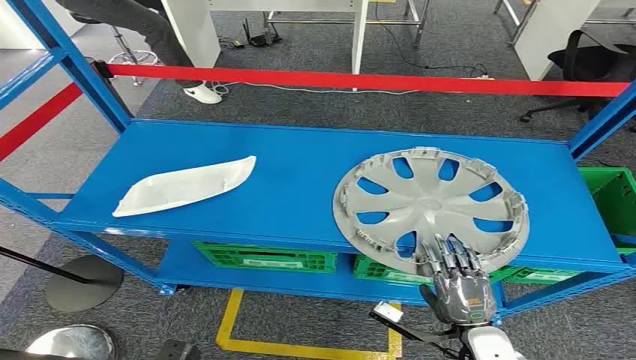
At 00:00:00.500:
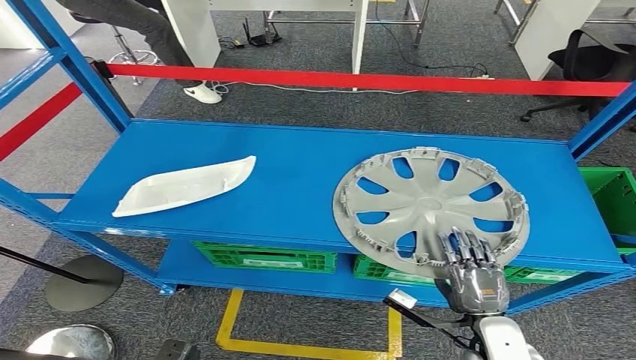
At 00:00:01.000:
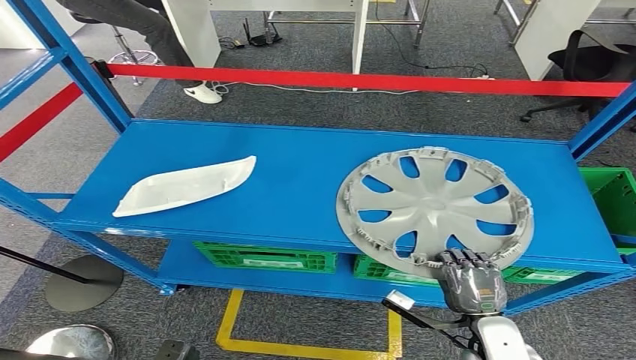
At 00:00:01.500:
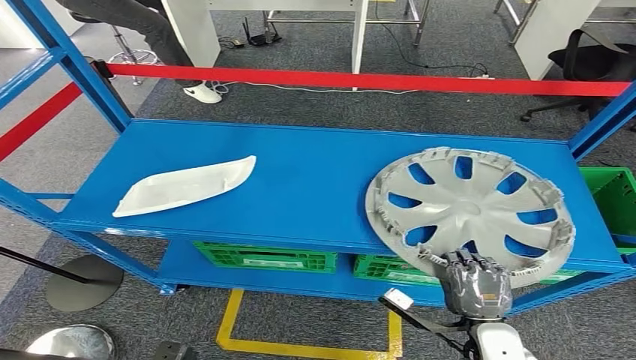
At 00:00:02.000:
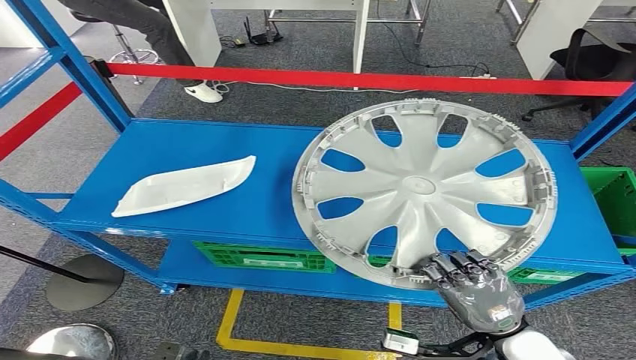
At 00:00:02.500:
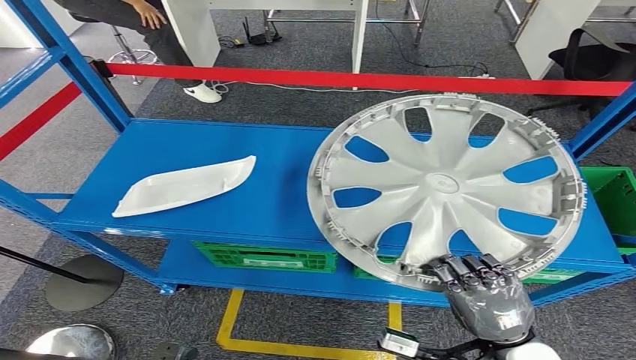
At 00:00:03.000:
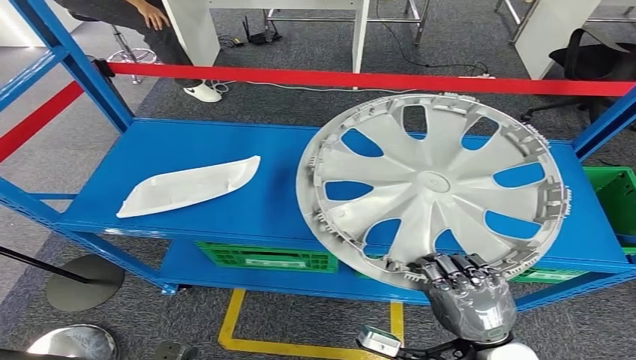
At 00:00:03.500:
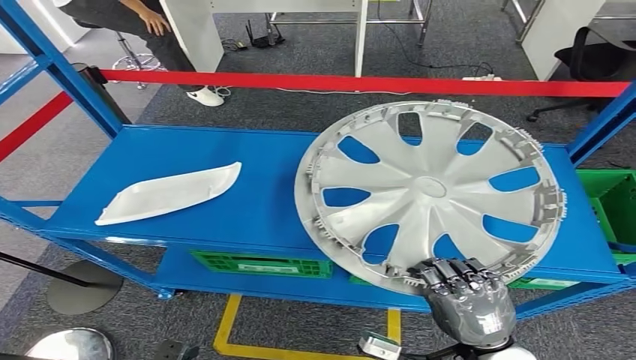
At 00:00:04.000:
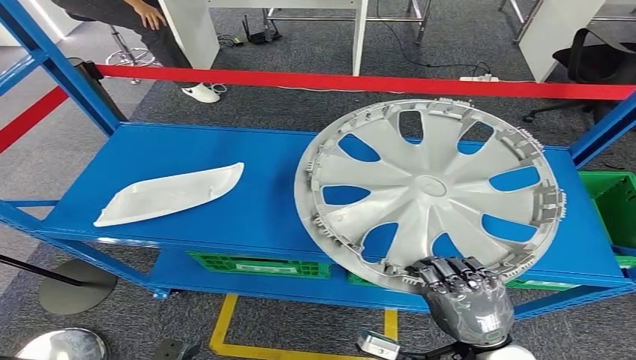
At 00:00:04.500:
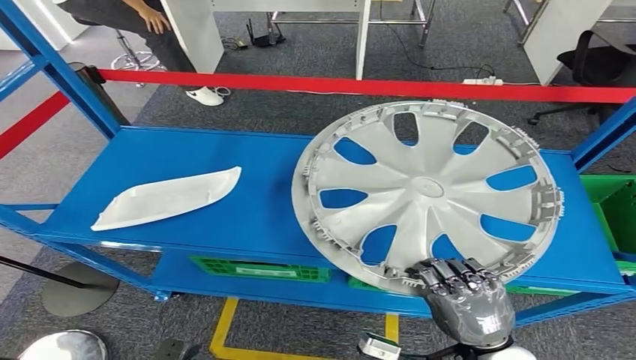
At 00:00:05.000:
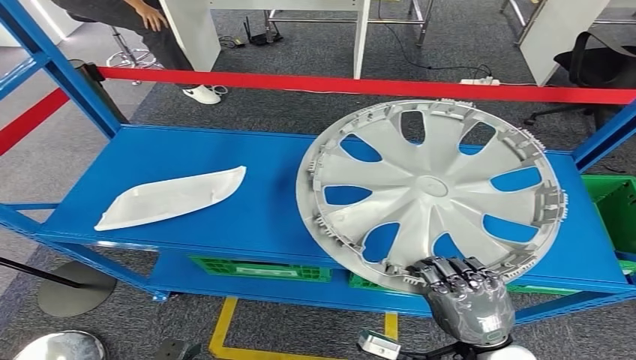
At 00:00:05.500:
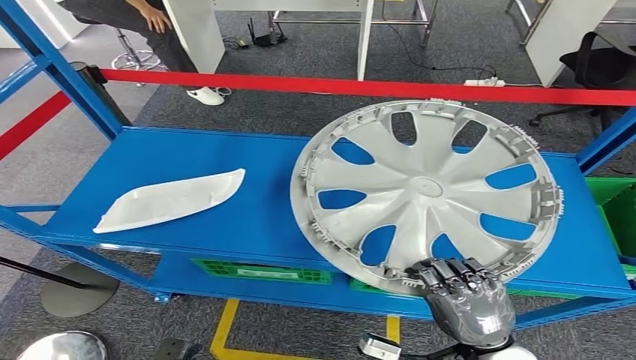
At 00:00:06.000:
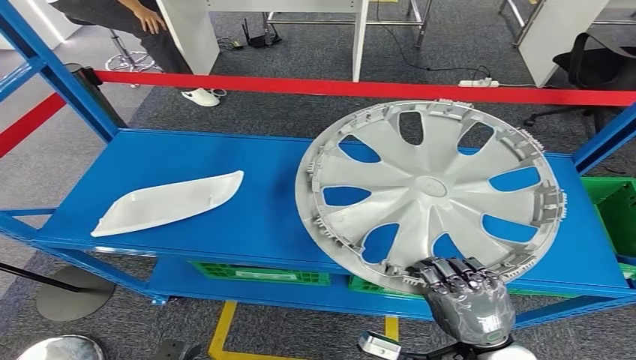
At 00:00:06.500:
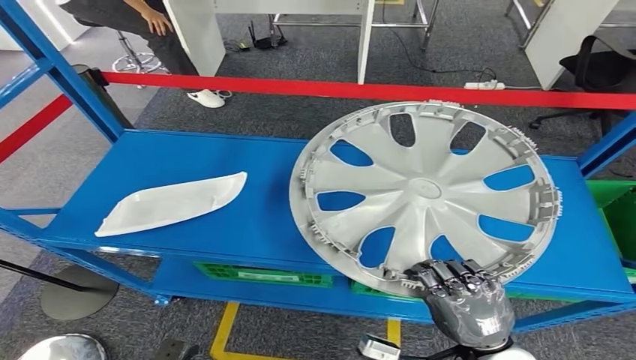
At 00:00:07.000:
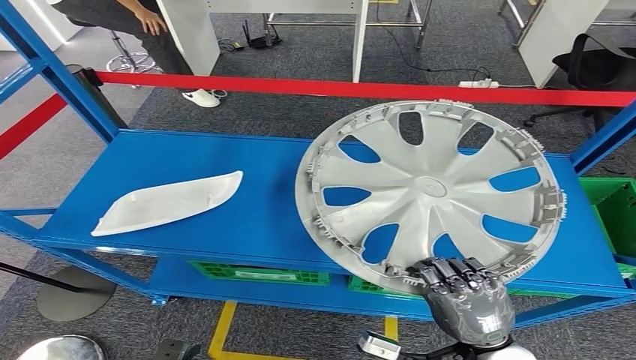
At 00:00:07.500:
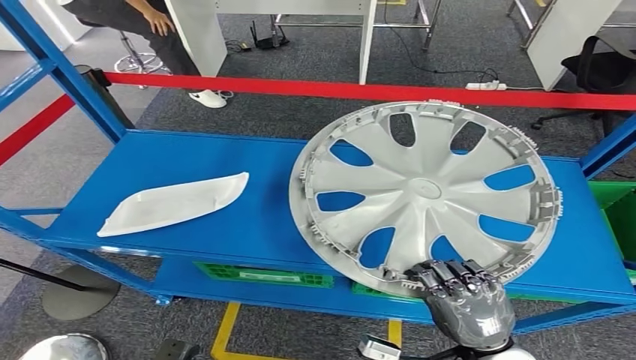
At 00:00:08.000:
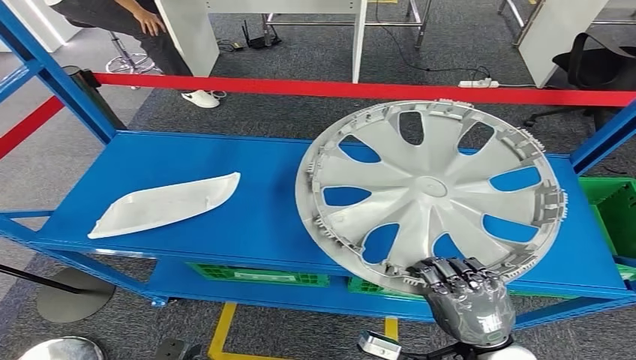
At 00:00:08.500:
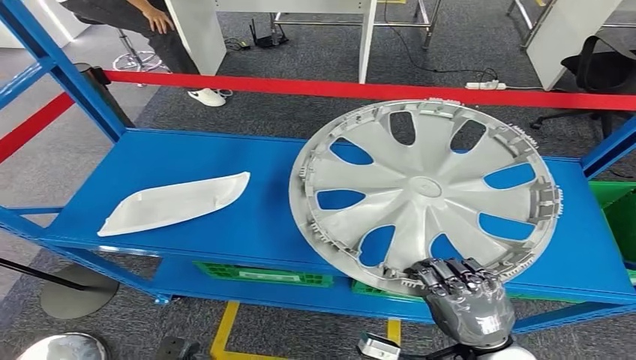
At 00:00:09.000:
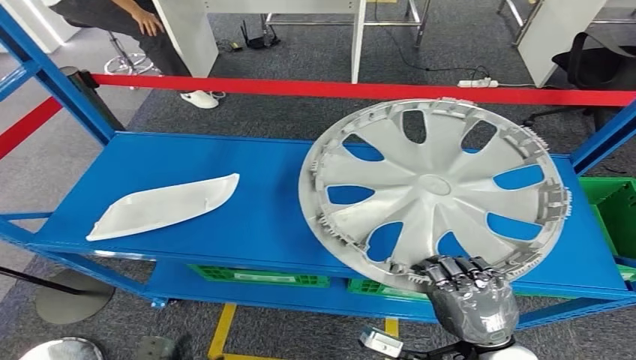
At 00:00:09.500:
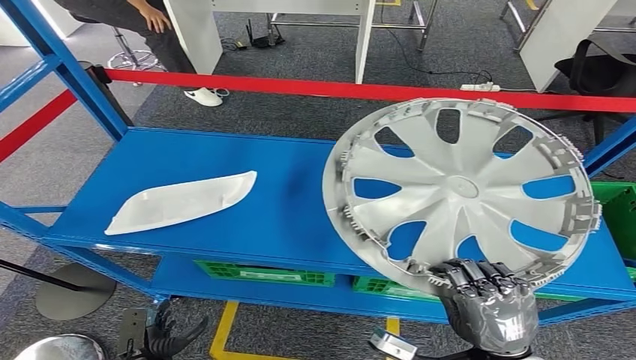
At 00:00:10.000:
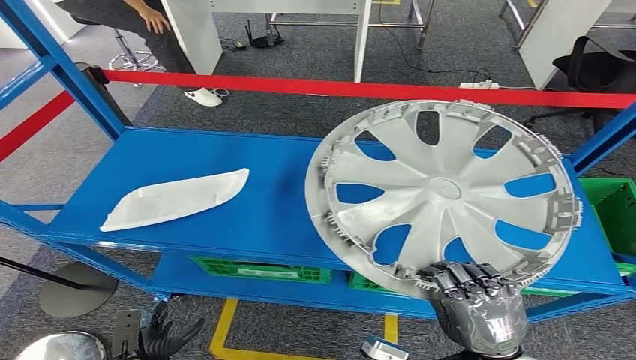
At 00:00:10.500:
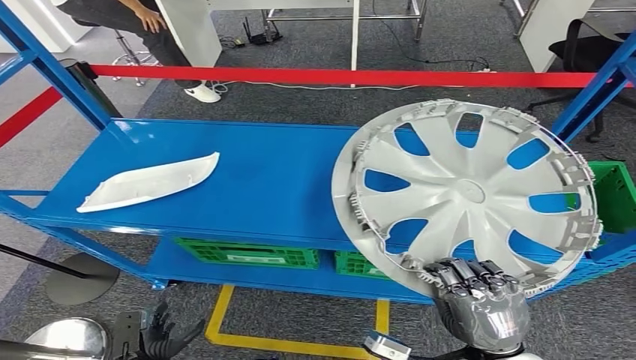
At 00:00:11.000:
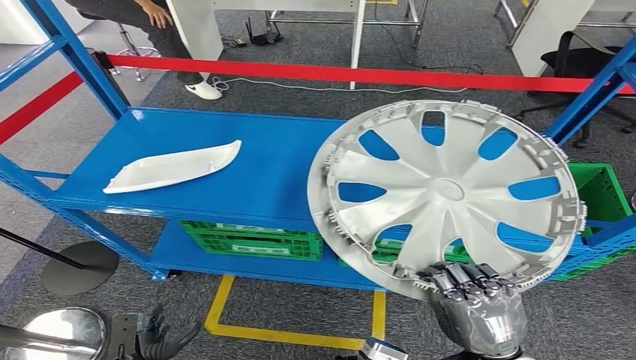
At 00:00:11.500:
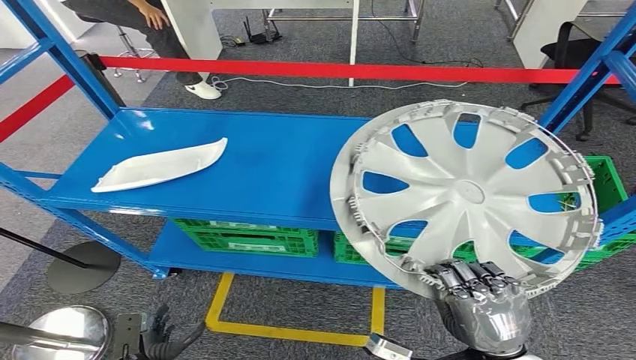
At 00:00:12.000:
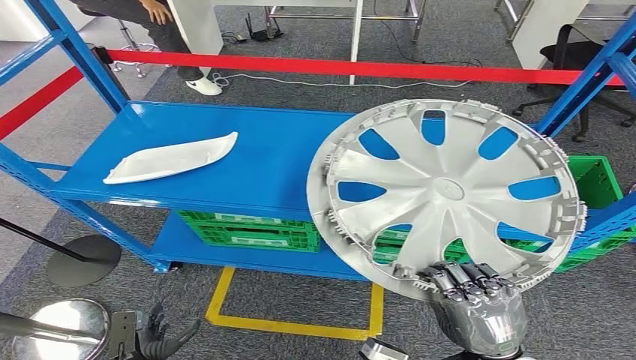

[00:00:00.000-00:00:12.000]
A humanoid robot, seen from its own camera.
Step, 00:00:00.000 to 00:00:03.500: Pick up the small component from the shelf.
00:00:04.000 to 00:00:08.000: Both hands stay about where they are.

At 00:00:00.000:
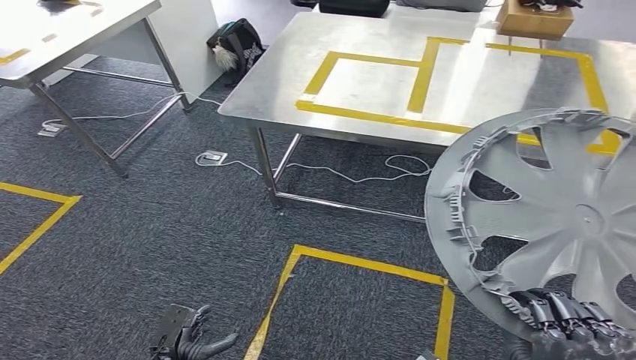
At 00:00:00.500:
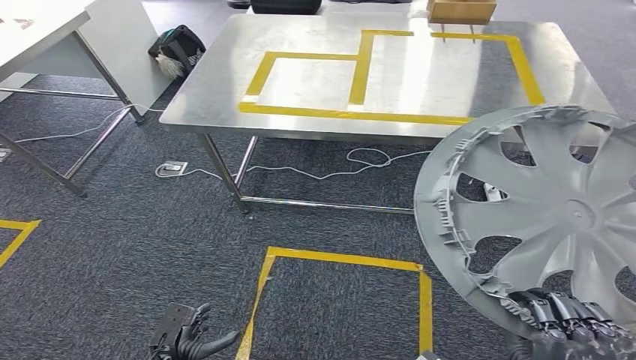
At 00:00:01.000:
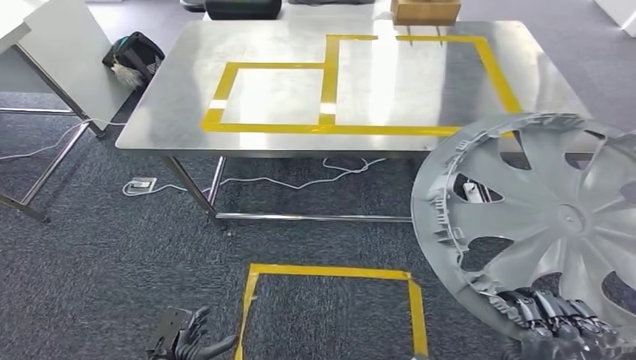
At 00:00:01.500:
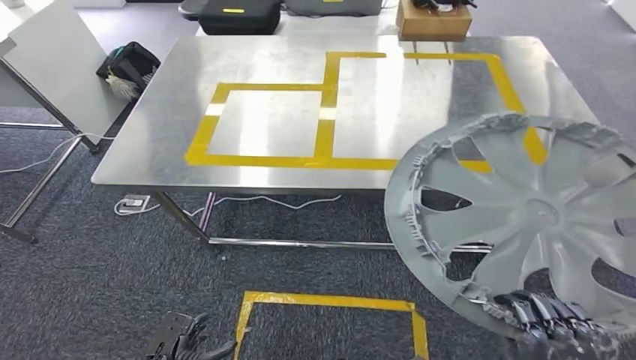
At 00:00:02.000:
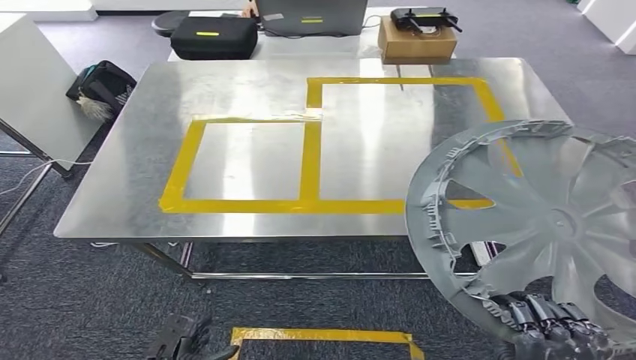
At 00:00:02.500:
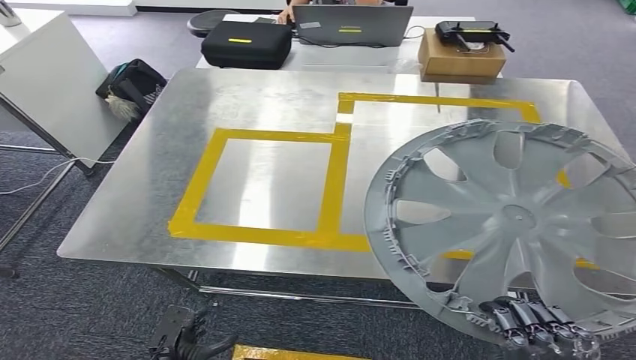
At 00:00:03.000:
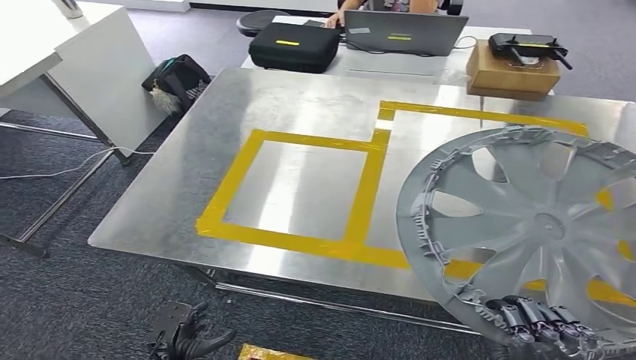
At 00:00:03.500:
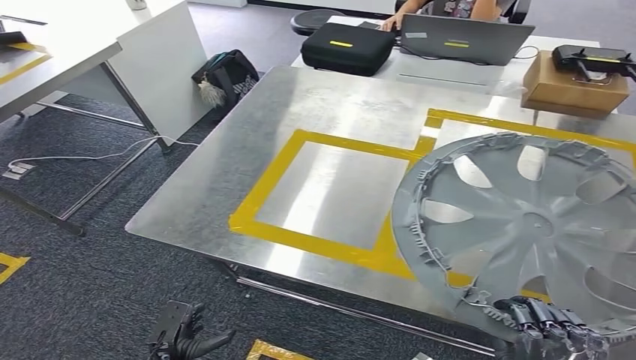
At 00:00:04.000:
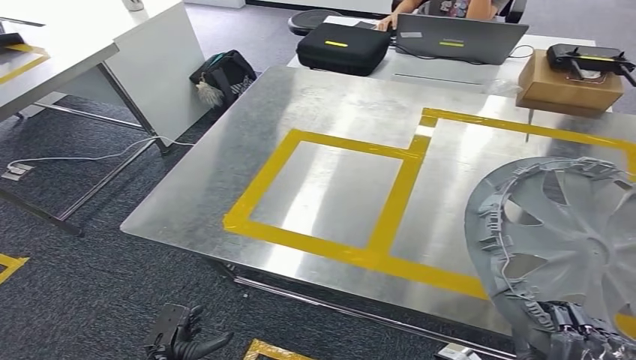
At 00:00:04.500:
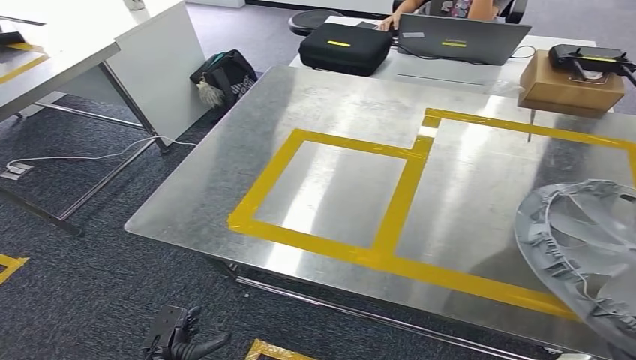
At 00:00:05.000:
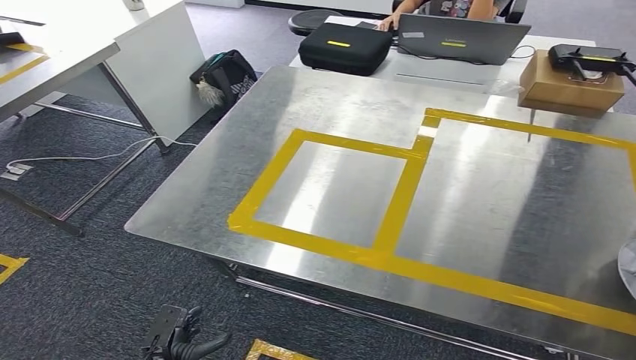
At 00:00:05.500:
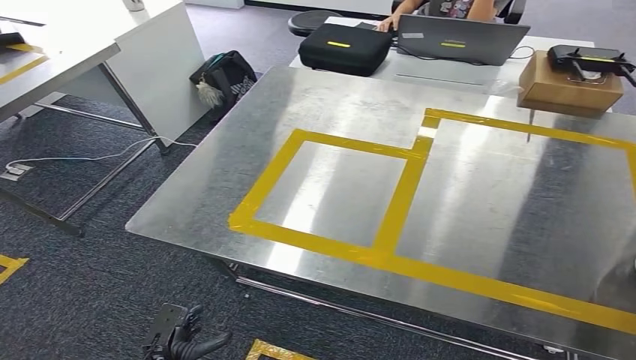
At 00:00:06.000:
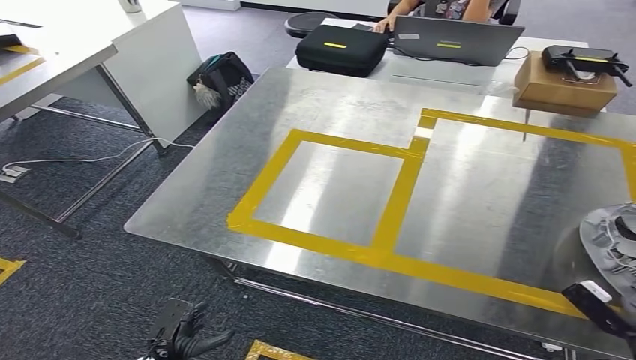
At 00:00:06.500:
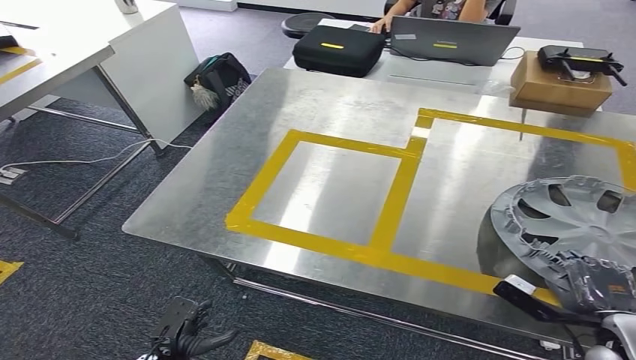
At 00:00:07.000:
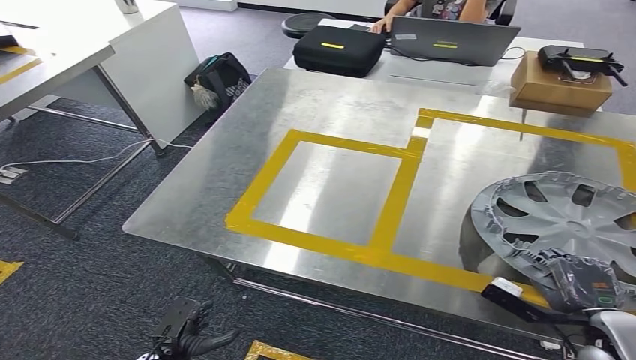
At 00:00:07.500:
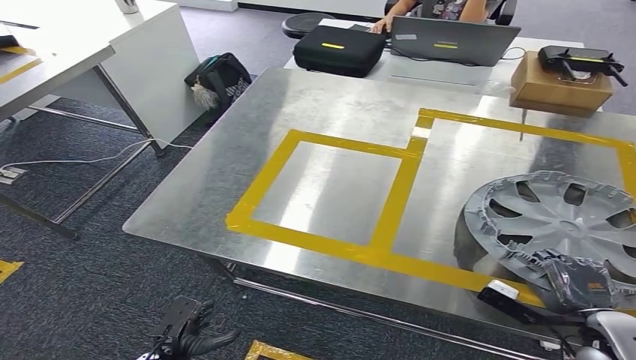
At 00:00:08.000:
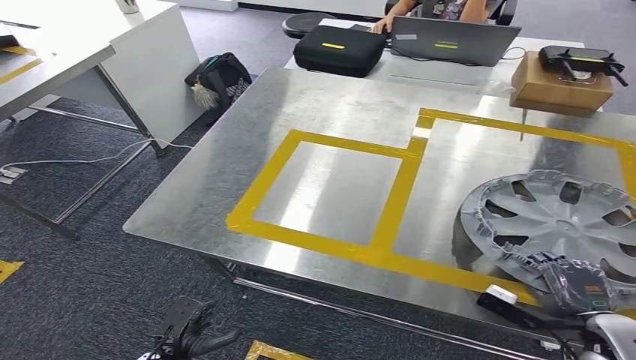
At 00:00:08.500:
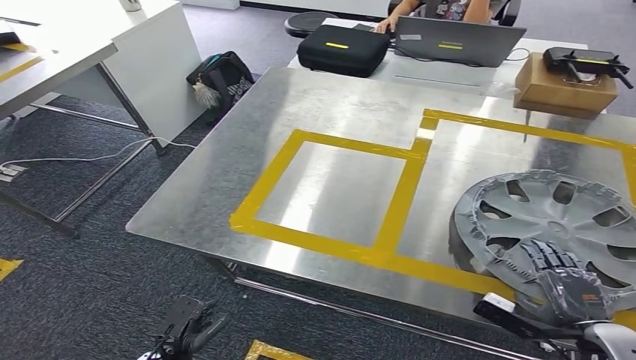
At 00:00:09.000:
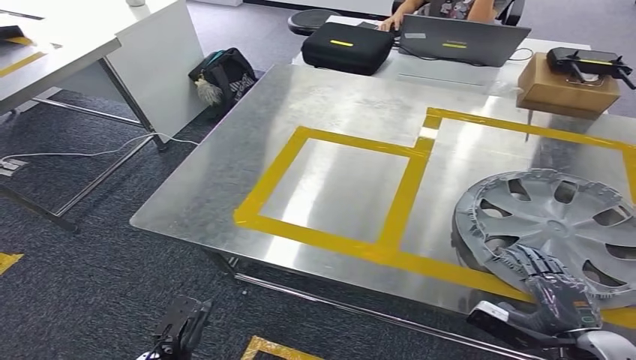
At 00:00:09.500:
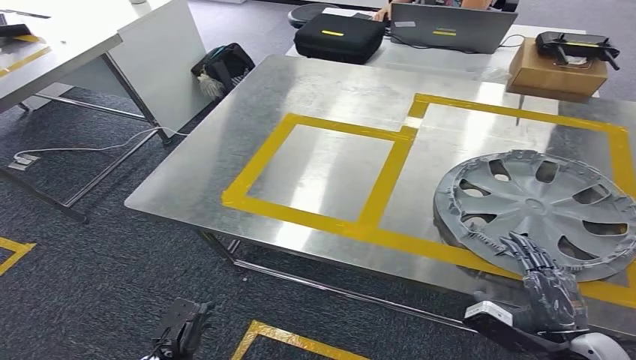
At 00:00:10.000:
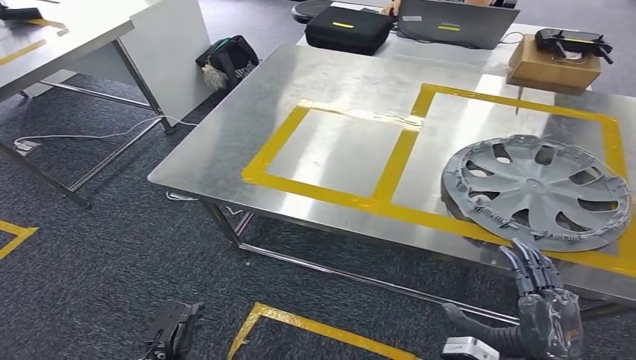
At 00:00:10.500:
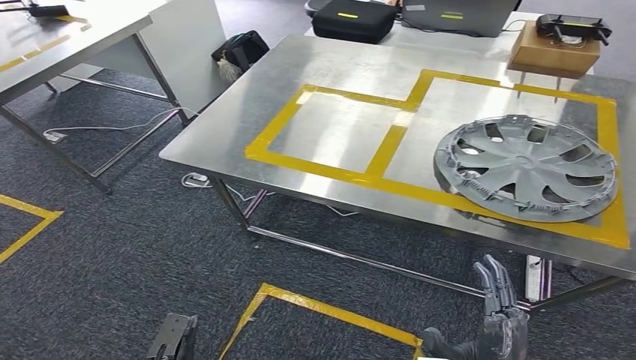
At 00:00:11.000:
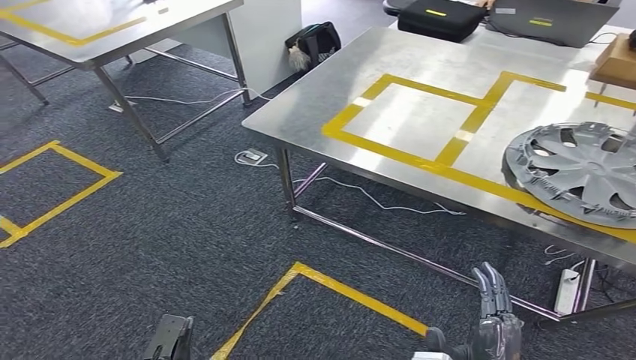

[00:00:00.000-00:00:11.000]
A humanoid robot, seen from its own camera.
Step, 00:00:01.500 to 00:00:10.000: Insert the small component into the corresponding slot on the workbench.
00:00:03.500 to 00:00:05.500: The right hand travels to the right by some 25 cm.
